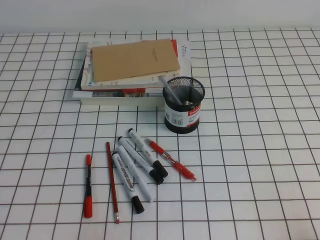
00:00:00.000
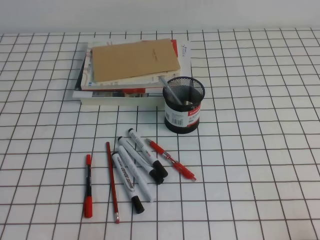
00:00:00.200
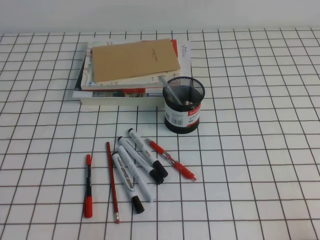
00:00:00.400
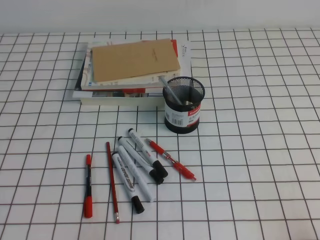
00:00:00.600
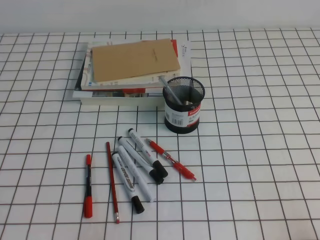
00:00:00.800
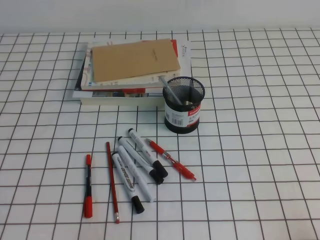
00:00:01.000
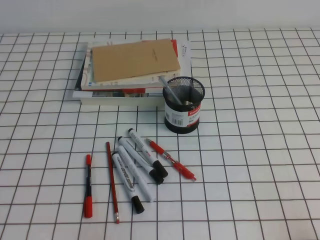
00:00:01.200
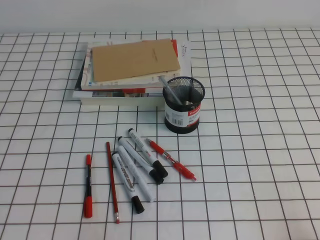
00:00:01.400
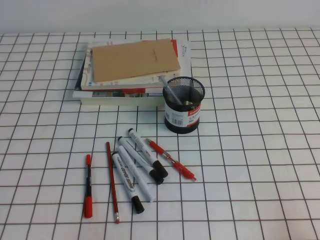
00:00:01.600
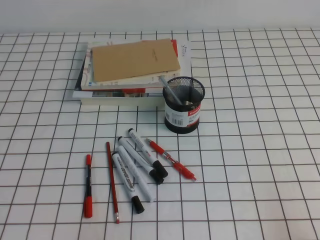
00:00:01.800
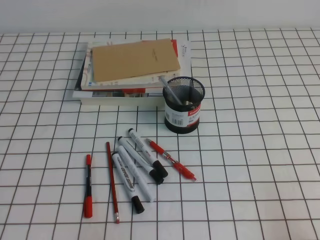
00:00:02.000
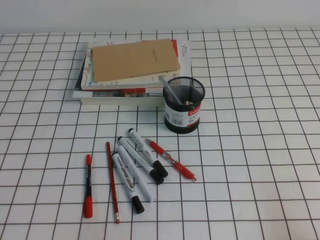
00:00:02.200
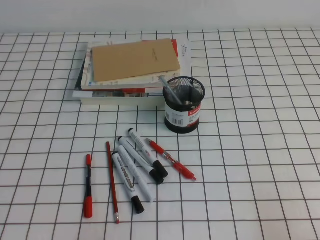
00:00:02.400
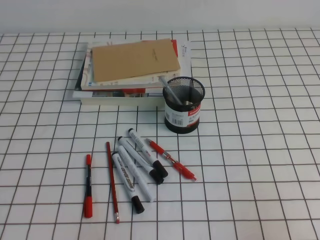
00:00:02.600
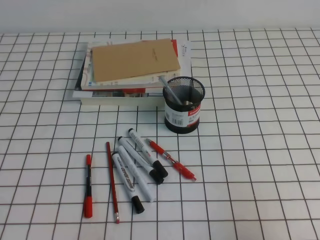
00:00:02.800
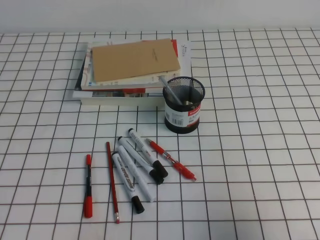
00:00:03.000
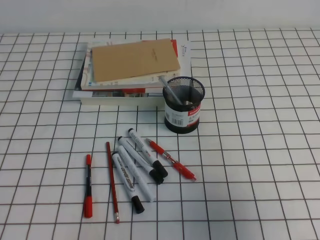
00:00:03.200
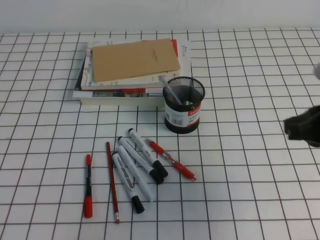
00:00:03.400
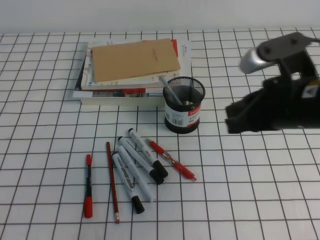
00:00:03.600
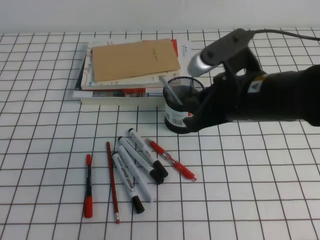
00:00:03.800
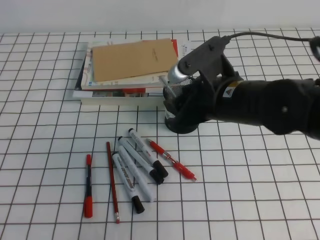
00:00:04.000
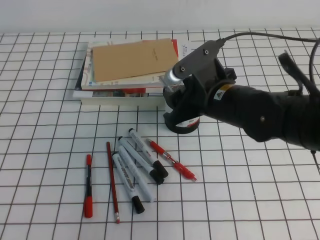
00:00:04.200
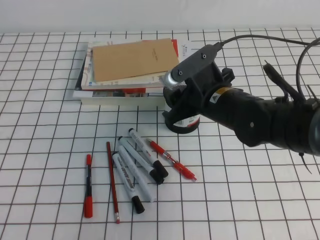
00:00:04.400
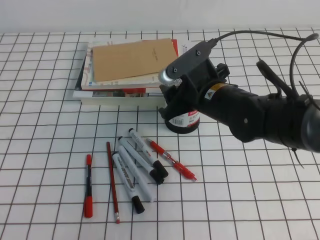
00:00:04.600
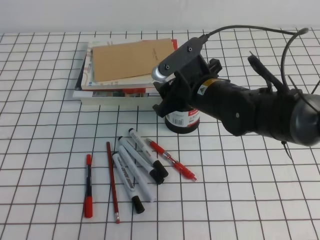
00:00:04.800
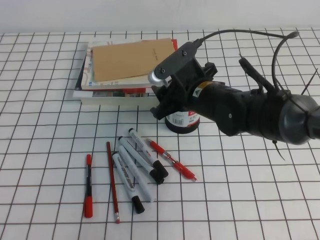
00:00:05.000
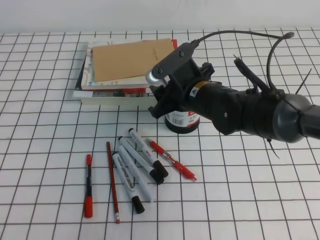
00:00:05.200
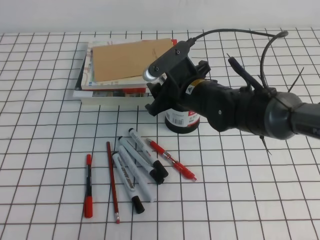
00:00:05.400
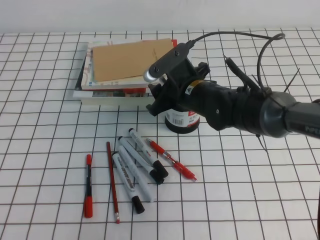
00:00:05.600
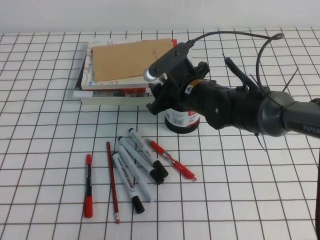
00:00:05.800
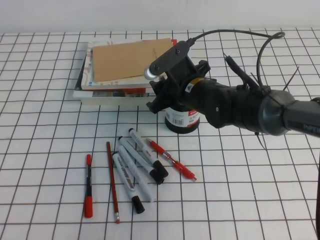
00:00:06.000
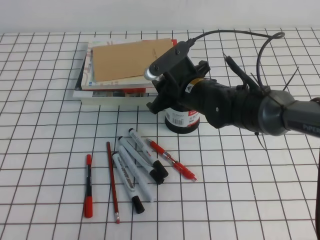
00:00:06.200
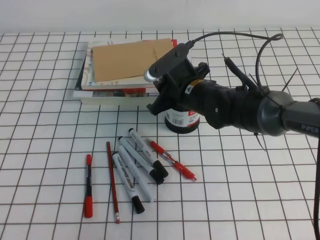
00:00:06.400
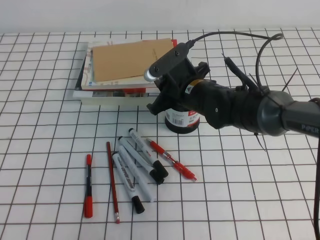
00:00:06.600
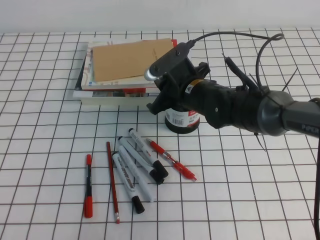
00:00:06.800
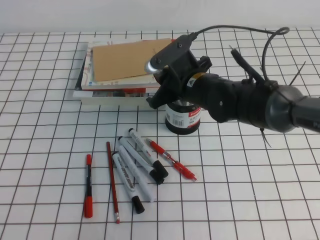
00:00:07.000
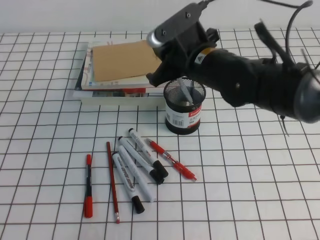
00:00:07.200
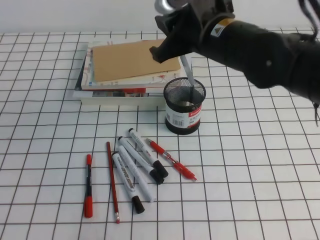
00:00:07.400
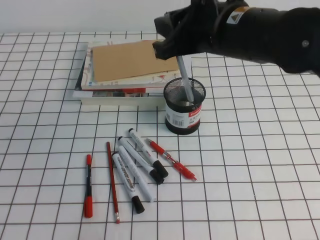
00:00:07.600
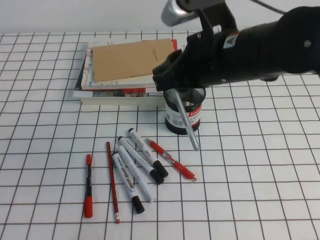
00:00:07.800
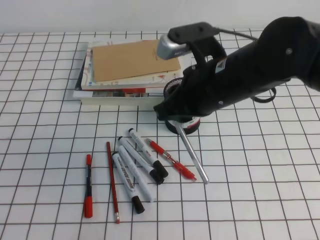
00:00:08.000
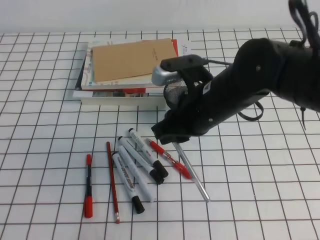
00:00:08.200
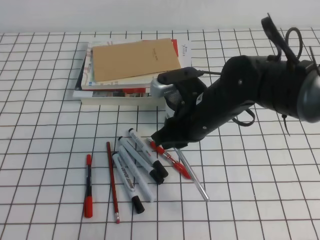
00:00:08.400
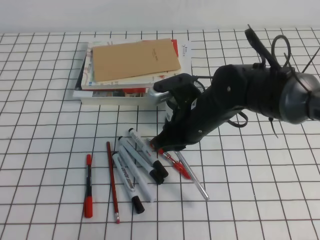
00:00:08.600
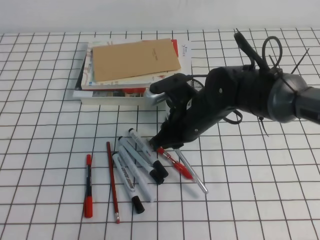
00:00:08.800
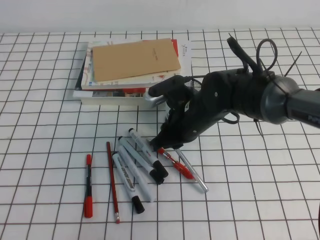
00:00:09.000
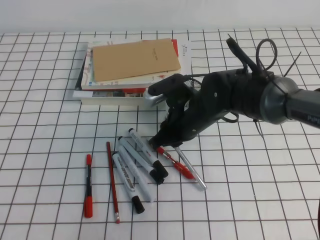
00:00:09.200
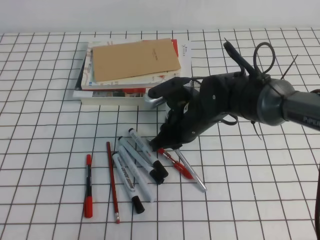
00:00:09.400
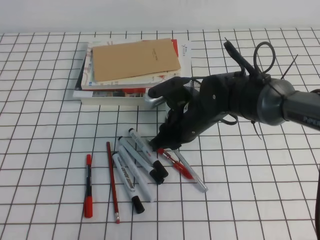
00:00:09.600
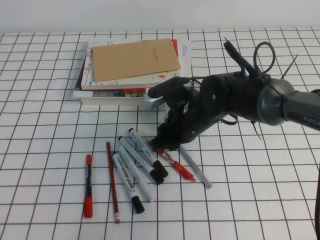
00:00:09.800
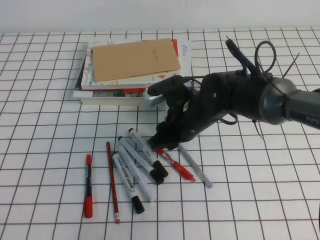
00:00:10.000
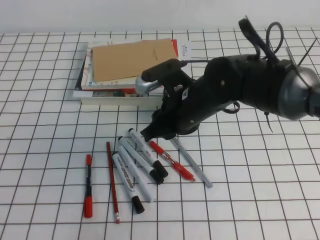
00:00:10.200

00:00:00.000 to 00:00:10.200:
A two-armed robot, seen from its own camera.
00:00:00.000 to 00:00:01.400: Both grippers stay put.
00:00:01.400 to 00:00:03.000: The right gripper goes about 15 cm upward and forward.
00:00:03.000 to 00:00:04.400: The right gripper travels to the left and forward by about 30 cm, and opens its fingers.
00:00:04.400 to 00:00:05.800: The right gripper goes approximately 5 cm forward.
00:00:05.800 to 00:00:07.200: The right gripper travels upward by approximately 5 cm, and closes up.
00:00:07.200 to 00:00:08.800: The right gripper goes approximately 5 cm downward.
00:00:08.800 to 00:00:10.200: The grippers move only a little.

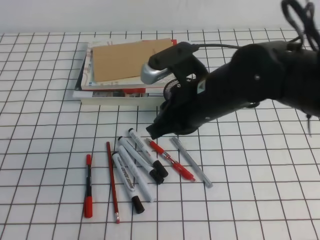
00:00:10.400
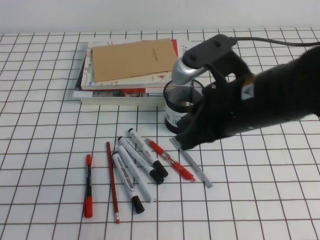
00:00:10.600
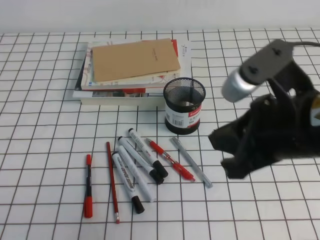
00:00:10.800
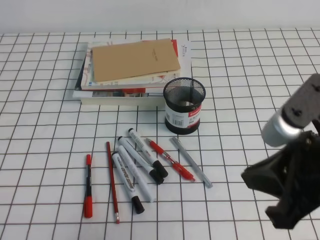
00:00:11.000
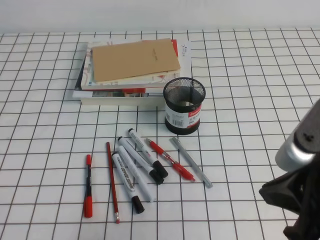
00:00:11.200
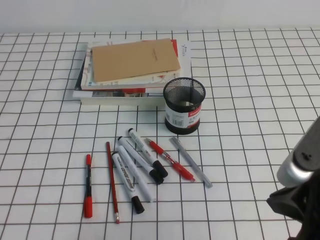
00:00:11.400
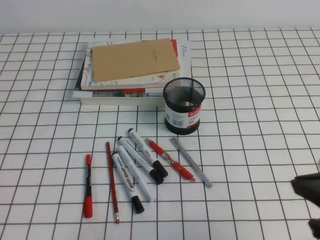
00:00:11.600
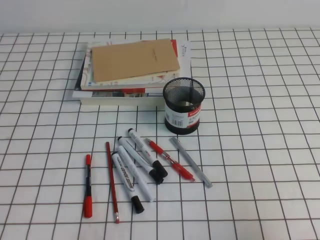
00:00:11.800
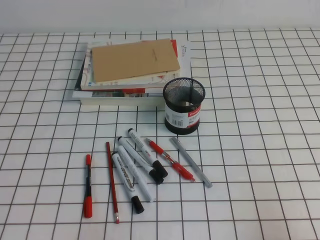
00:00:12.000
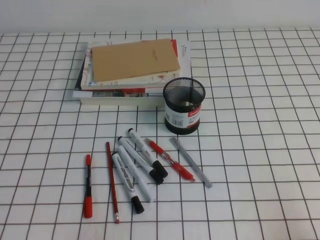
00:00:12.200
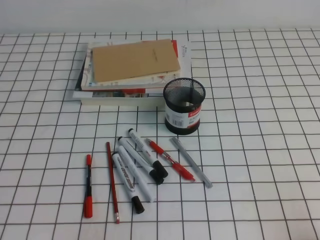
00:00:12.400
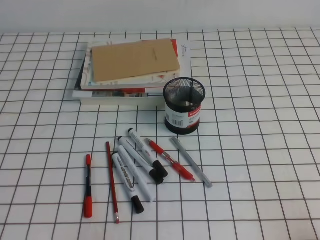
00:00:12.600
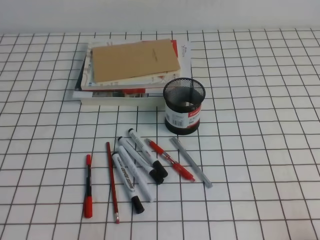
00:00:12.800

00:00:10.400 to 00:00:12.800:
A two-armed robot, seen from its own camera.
Step, 00:00:10.400 to 00:00:12.800: Pick up the pen from the pen holder.
00:00:10.400 to 00:00:11.600: The right gripper moves to the right and backward, some 25 cm.
00:00:11.600 to 00:00:12.800: The right gripper heads downward, to the right and backward, covering approximately 15 cm.
